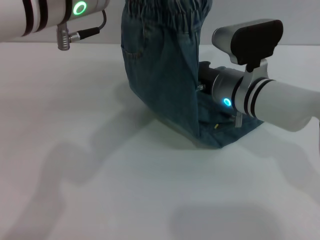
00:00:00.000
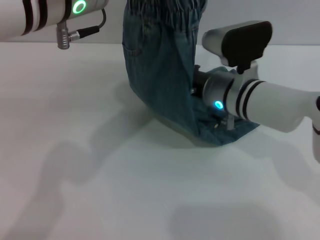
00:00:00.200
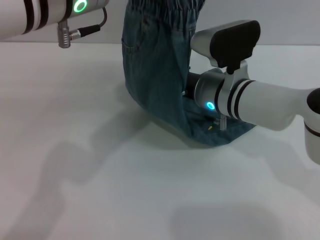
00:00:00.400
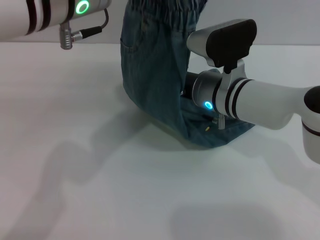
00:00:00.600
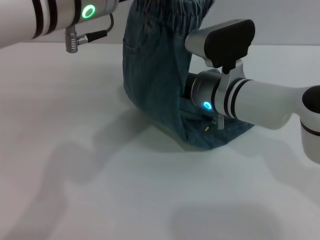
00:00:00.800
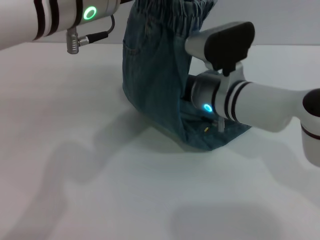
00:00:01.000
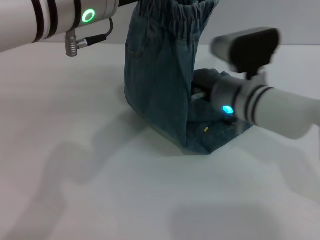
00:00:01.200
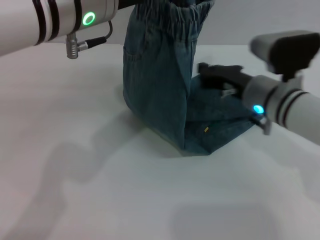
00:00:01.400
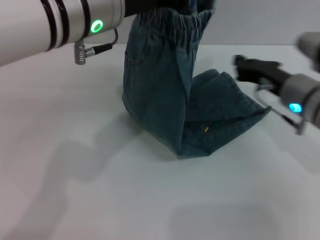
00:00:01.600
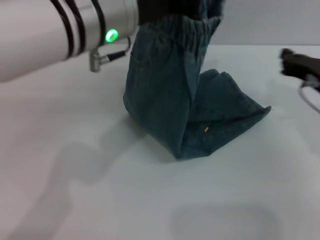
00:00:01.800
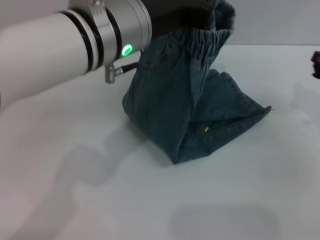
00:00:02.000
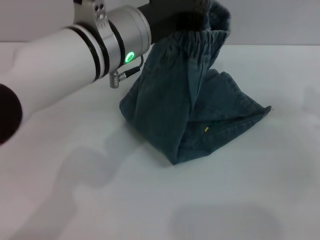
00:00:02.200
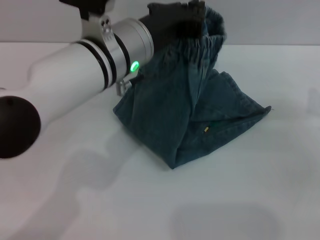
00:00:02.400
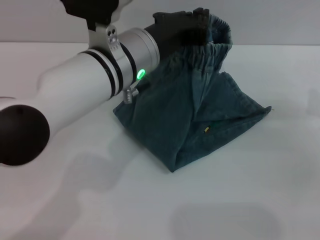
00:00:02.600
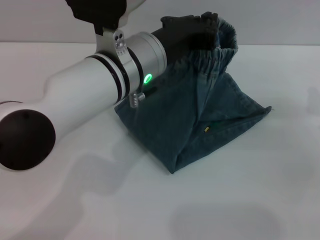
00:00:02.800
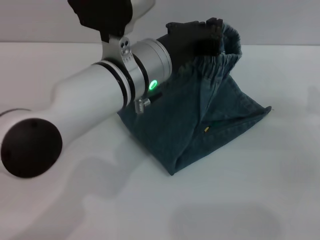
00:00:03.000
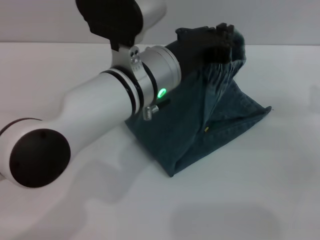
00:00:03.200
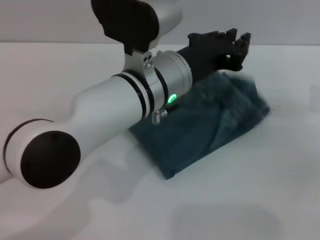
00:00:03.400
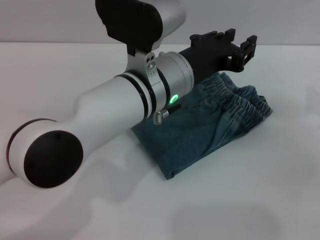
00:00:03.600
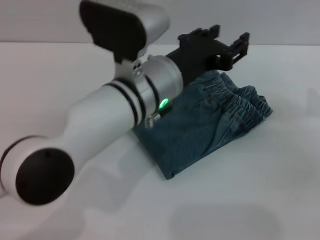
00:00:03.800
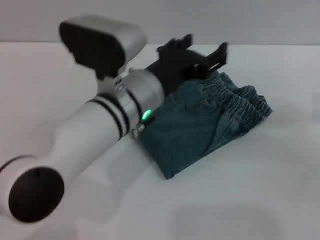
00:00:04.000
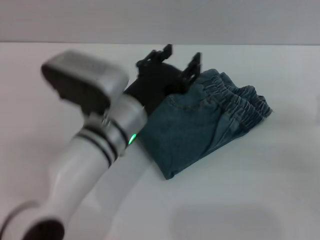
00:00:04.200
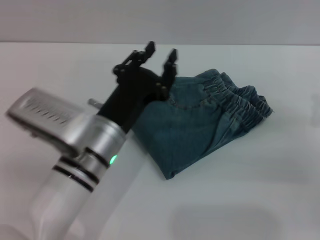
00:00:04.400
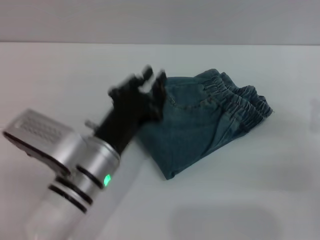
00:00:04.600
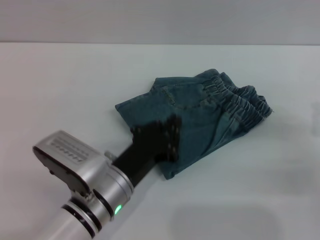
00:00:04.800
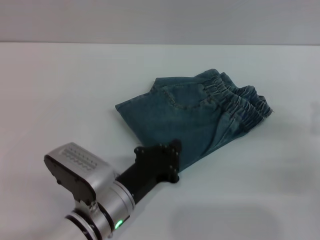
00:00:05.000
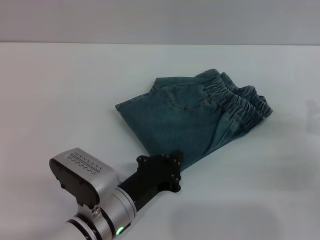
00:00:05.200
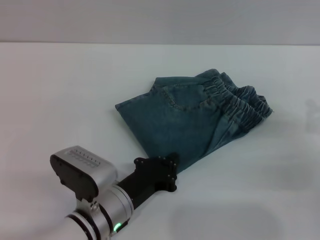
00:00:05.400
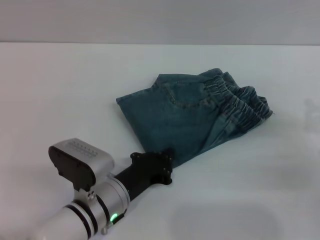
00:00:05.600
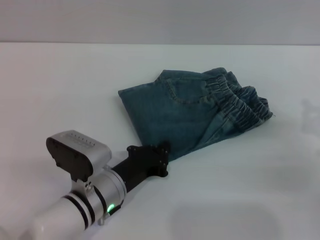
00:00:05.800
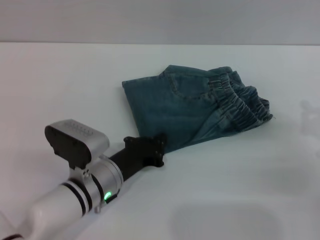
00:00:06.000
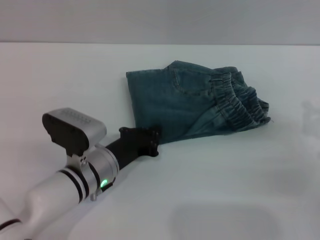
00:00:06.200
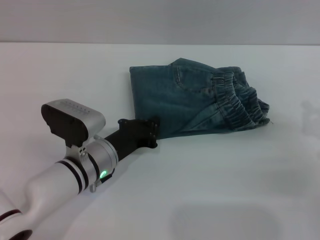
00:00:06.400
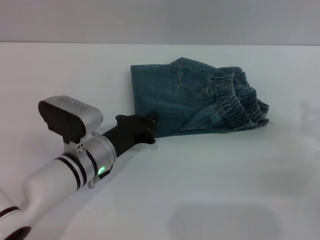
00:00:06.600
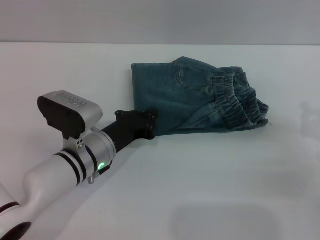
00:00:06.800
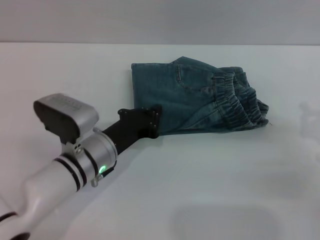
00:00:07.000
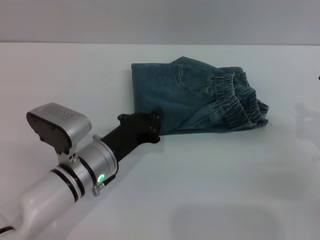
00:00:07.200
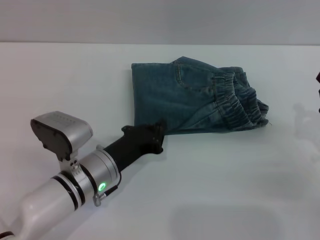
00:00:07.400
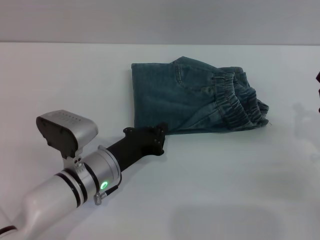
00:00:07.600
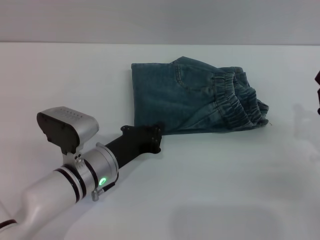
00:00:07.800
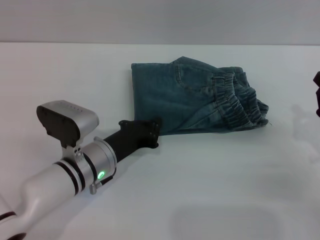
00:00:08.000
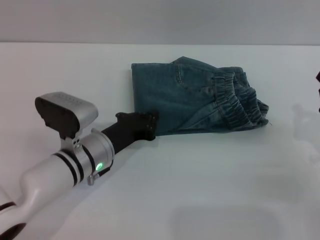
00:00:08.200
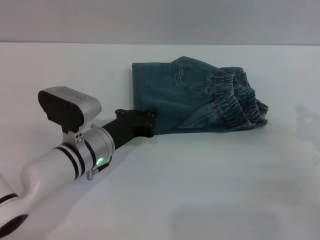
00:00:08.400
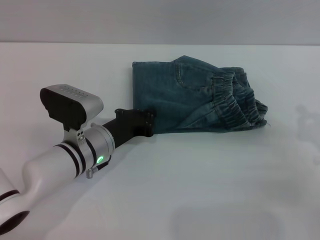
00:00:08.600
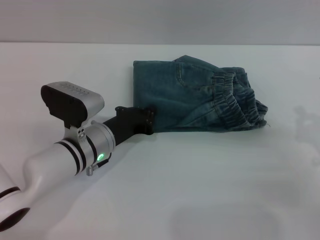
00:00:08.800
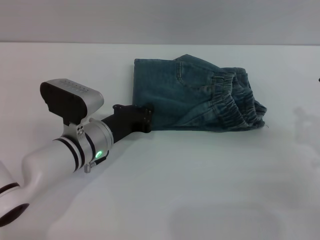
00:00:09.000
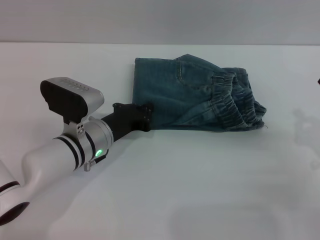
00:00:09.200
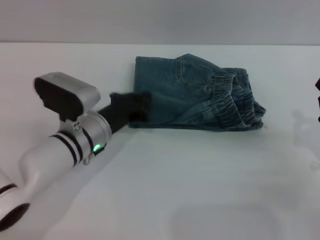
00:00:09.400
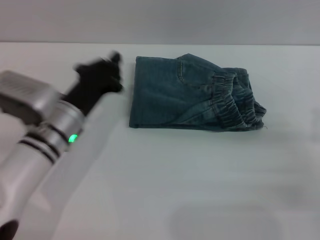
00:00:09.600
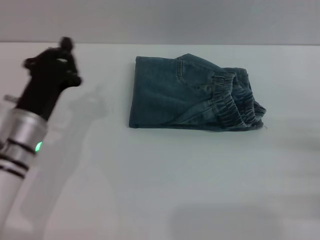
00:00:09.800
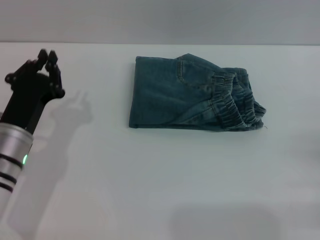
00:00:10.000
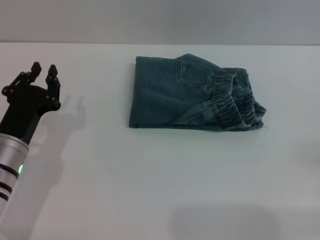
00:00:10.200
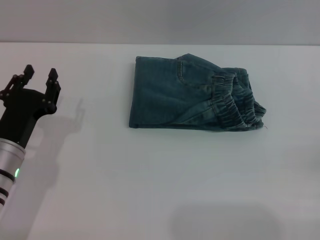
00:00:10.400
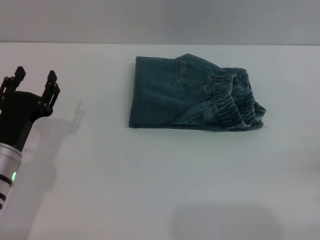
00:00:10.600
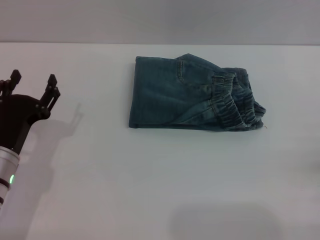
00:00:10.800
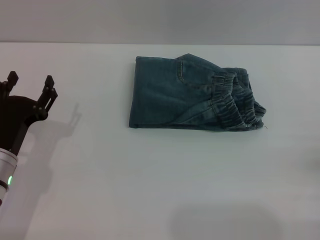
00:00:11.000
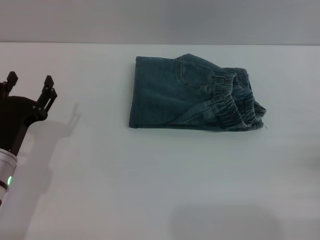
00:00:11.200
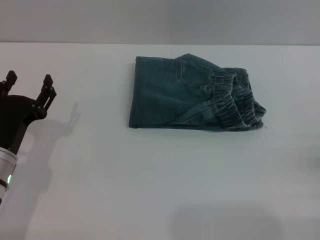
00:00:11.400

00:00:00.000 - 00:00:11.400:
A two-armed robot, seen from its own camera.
Step, 00:00:00.000 - 00:00:03.600: Fold the pants from left to right with the left gripper.
Step, 00:00:03.800 - 00:00:09.400: Place the folded trousers onto the center area with the left grippers.
00:00:00.000 - 00:00:01.400: The right gripper shifts by some 5 cm.
00:00:01.400 - 00:00:02.800: The left gripper travels downward by approximately 10 cm; the right gripper shifts roughly 15 cm to the right.
00:00:02.800 - 00:00:04.200: The left gripper shifts roughly 10 cm downward, and opens.
00:00:04.200 - 00:00:05.600: The left gripper moves downward and backward, roughly 10 cm, and closes its fingers.
00:00:05.600 - 00:00:07.200: The left gripper moves some 5 cm.
00:00:07.200 - 00:00:08.600: The grippers make only small movements.
00:00:08.600 - 00:00:10.000: The right gripper travels to the right by roughly 5 cm; the left gripper moves to the left, roughly 10 cm.
00:00:10.000 - 00:00:11.400: The left gripper opens its fingers.

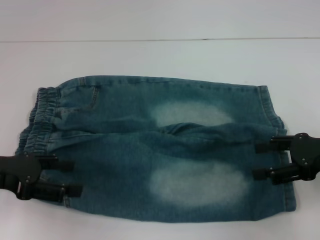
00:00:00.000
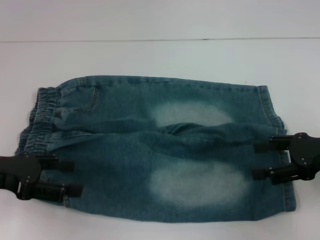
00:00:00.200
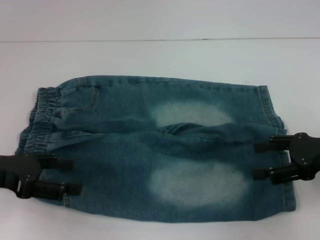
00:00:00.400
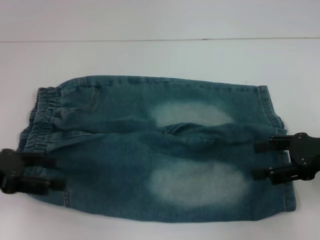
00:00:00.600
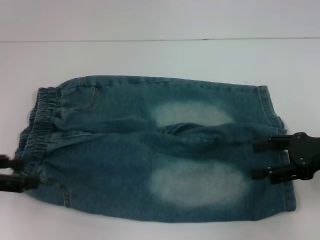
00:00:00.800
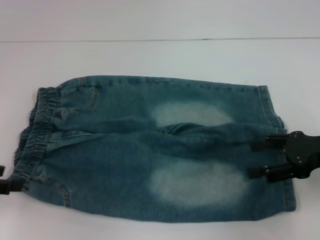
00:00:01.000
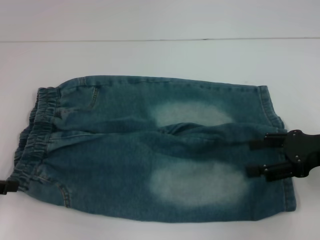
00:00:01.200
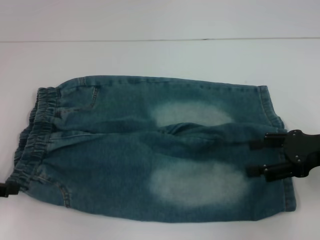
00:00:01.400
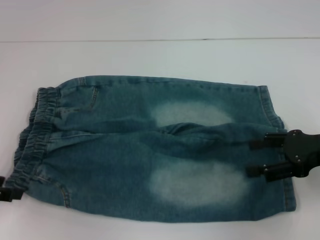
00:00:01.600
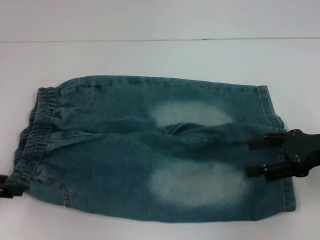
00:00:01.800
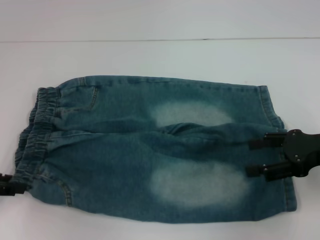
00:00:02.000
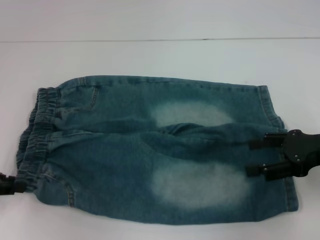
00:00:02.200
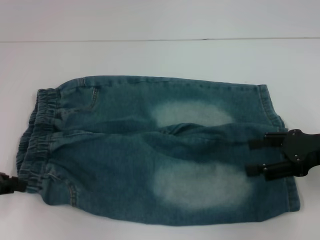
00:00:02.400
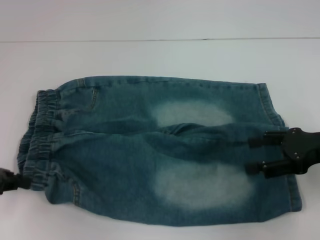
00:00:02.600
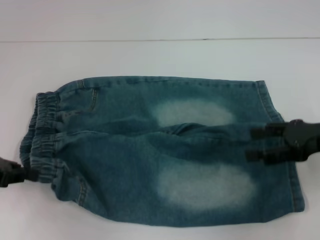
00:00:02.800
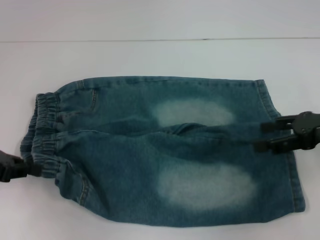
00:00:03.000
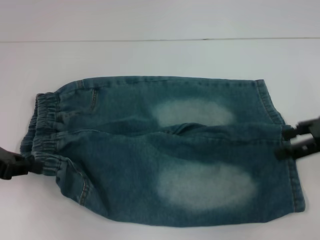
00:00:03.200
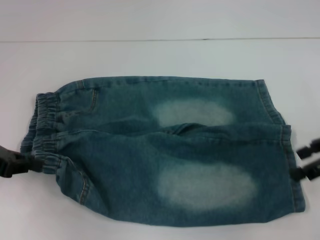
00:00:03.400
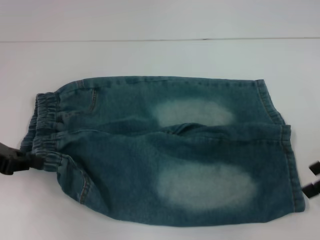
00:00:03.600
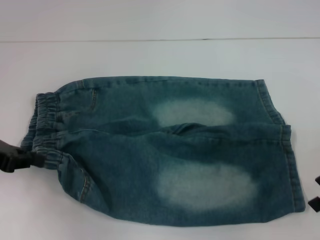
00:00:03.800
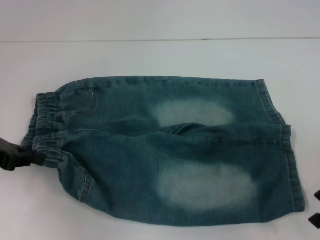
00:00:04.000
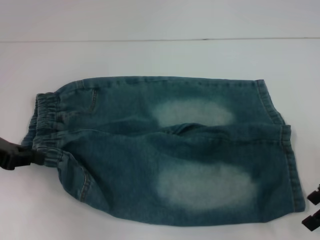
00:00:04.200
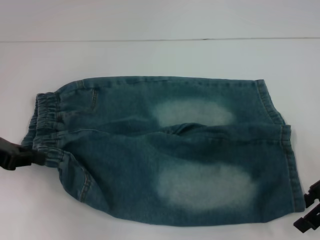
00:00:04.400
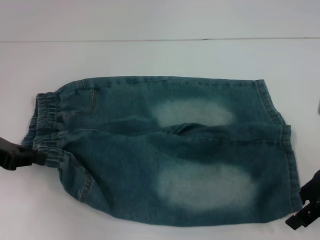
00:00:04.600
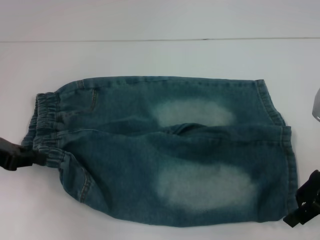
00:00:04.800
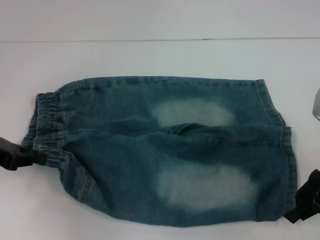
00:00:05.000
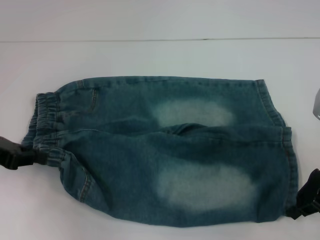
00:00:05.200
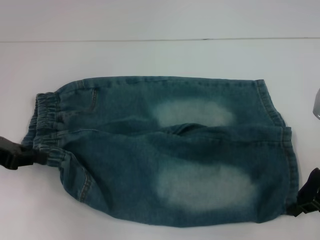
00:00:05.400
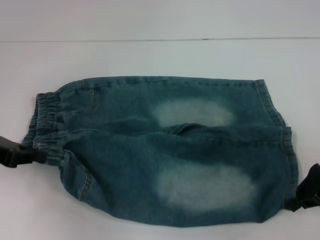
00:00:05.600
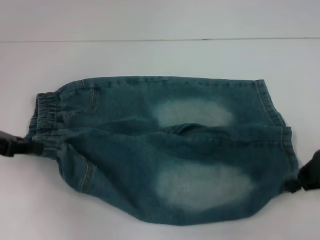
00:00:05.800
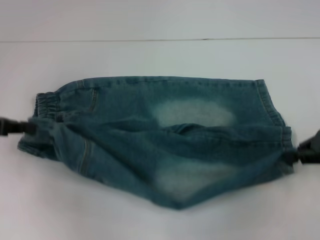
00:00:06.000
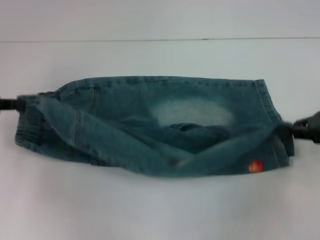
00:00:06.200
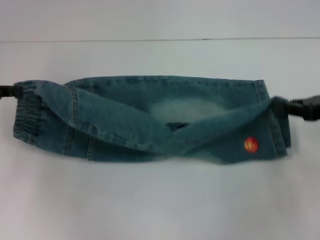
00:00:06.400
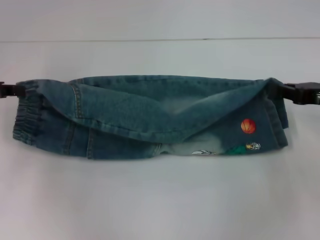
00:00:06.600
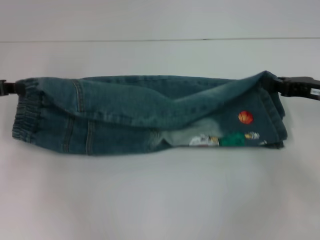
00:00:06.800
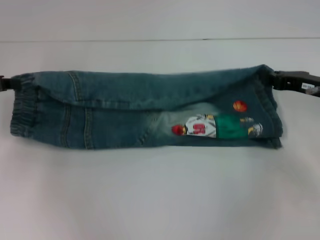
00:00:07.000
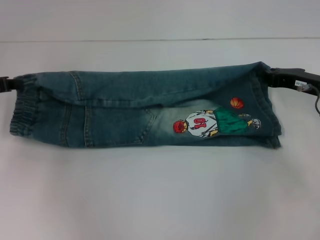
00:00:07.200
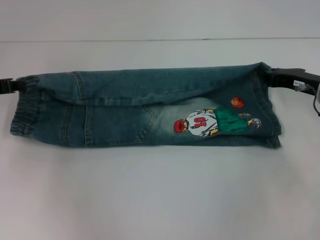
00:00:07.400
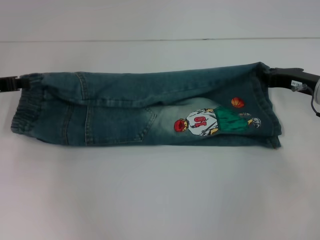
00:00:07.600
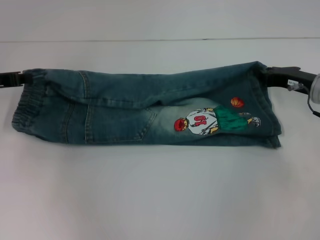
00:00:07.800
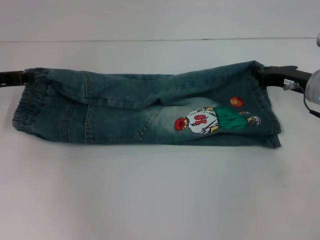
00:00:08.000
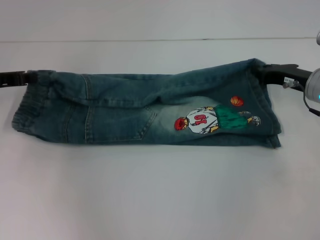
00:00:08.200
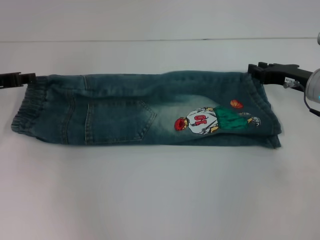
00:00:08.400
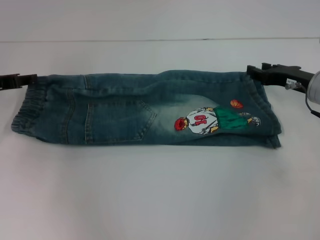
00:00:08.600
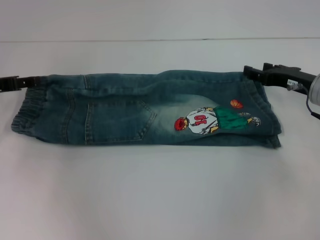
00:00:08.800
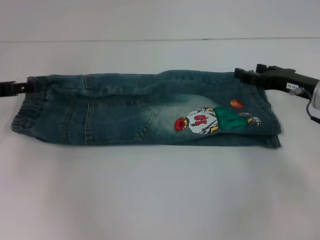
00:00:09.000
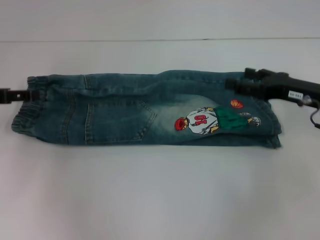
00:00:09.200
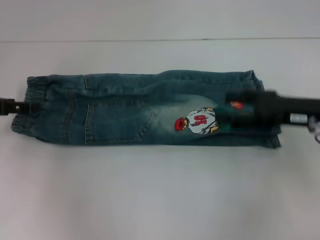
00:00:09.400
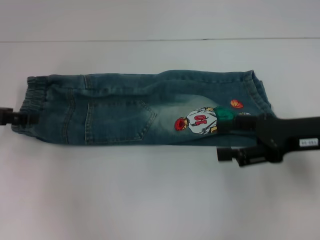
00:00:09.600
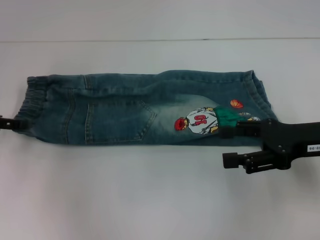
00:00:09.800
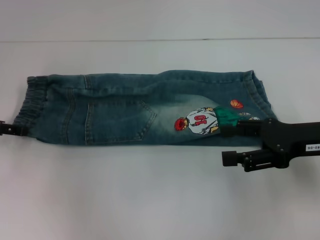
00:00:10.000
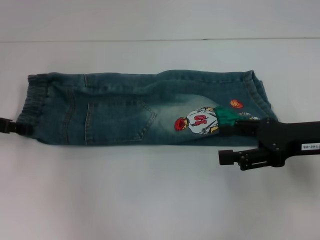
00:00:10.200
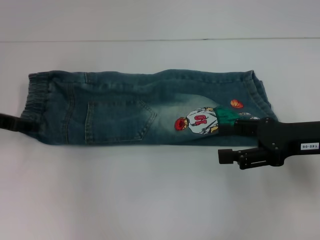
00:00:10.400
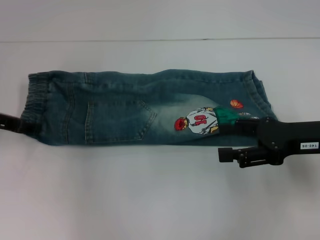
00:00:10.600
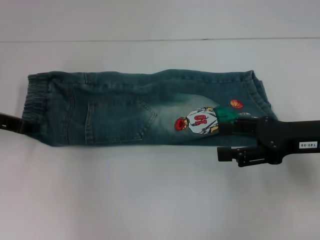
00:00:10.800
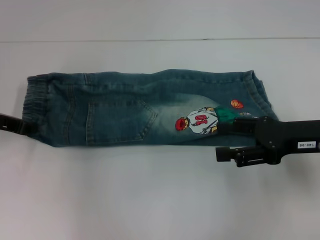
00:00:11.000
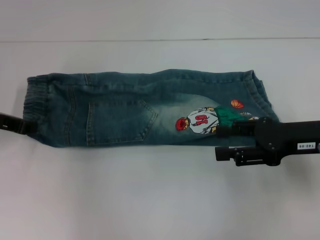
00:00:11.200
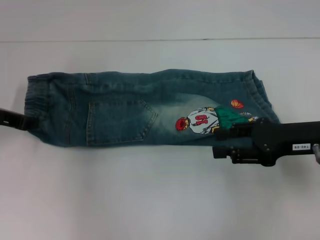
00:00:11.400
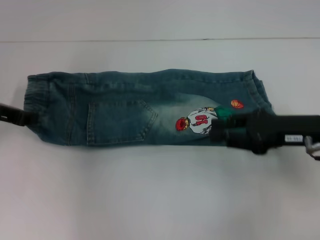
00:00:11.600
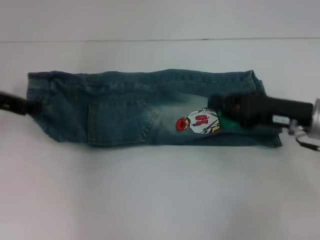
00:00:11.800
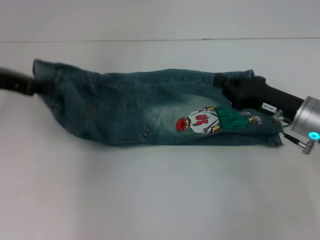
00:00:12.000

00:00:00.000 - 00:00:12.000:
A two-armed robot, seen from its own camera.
Step, 00:00:00.000 - 00:00:02.600: Hold the lower left waistband with your left hand.
Step, 00:00:02.800 - 00:00:05.600: Grab the lower right pant leg with your right hand.
Step, 00:00:05.800 - 00:00:09.000: Fold upward with your right hand.
Step, 00:00:09.200 - 00:00:11.400: Hold the waistband with your left hand.
00:00:00.000 - 00:00:01.600: The left gripper travels to the left by roughly 5 cm.
00:00:01.600 - 00:00:03.000: The left gripper closes its fingers.
00:00:04.400 - 00:00:06.000: The right gripper closes its fingers.
00:00:06.000 - 00:00:07.600: The right gripper is displaced downward and forward by some 10 cm. Meanwhile the left gripper heads forward, covering some 5 cm.
00:00:07.600 - 00:00:09.000: The right gripper opens, while the left gripper opens up.
00:00:09.000 - 00:00:10.400: The right gripper goes about 5 cm backward.
00:00:10.400 - 00:00:12.000: The left gripper goes approximately 5 cm upward, and closes up, while the right gripper ends up about 5 cm from where it was, and closes its fingers.
